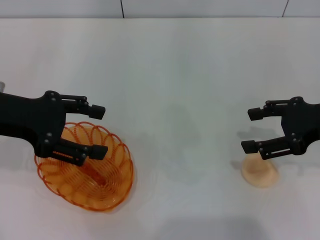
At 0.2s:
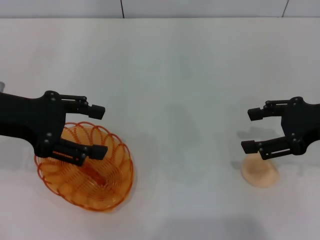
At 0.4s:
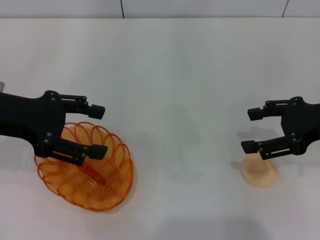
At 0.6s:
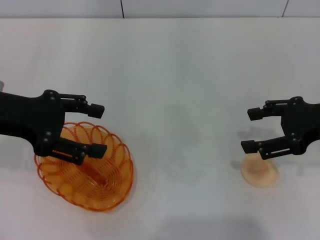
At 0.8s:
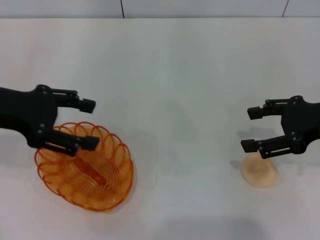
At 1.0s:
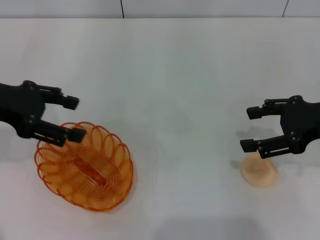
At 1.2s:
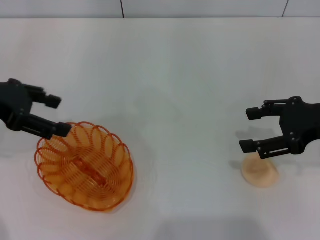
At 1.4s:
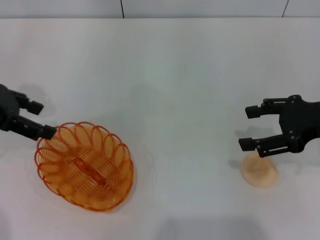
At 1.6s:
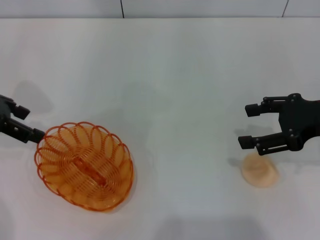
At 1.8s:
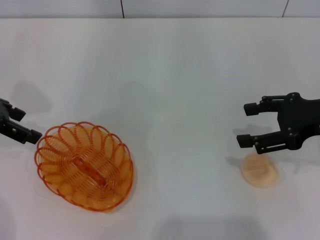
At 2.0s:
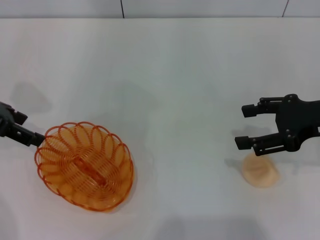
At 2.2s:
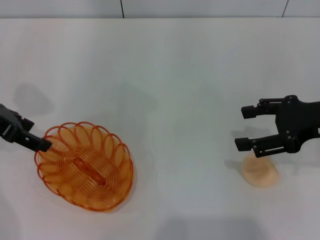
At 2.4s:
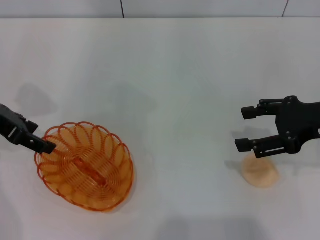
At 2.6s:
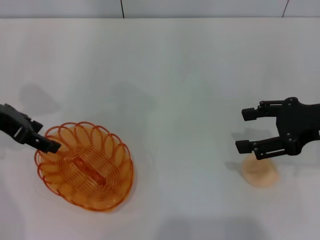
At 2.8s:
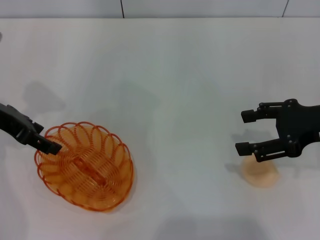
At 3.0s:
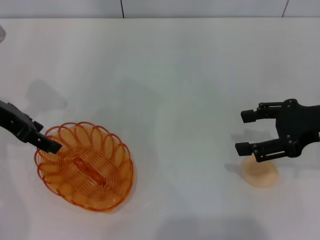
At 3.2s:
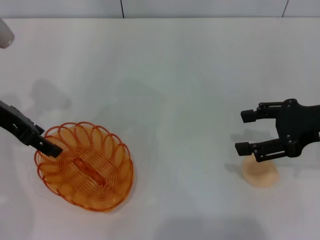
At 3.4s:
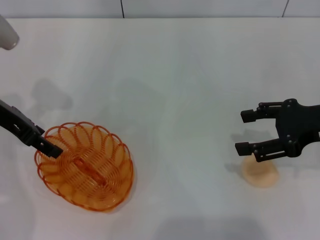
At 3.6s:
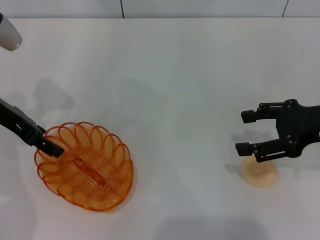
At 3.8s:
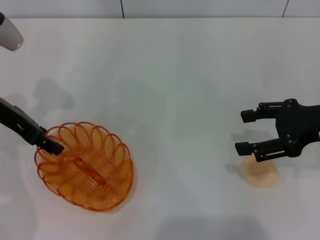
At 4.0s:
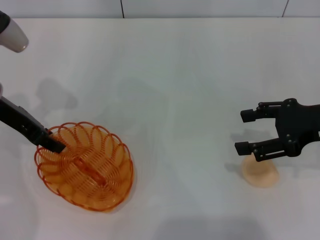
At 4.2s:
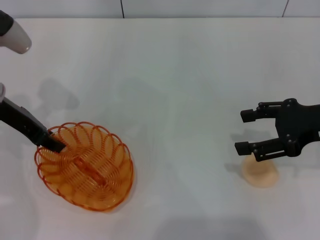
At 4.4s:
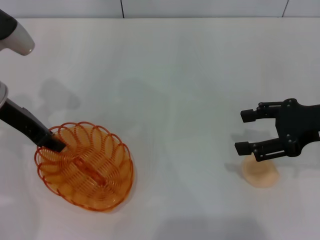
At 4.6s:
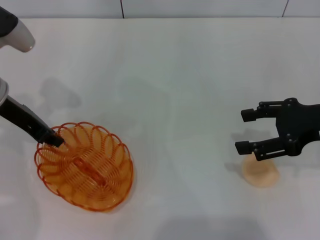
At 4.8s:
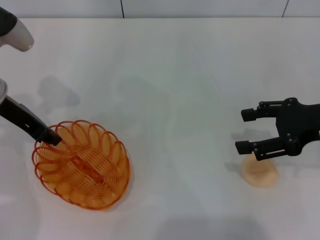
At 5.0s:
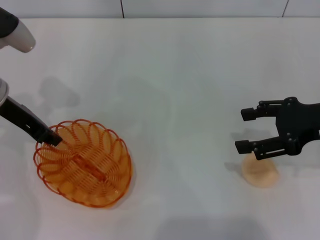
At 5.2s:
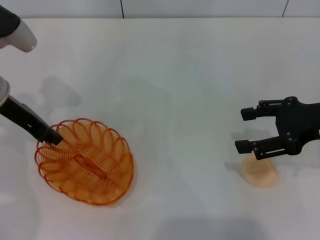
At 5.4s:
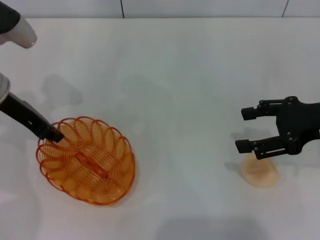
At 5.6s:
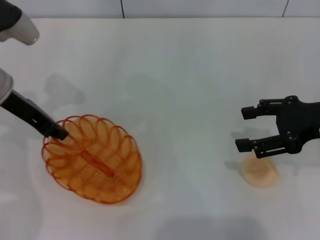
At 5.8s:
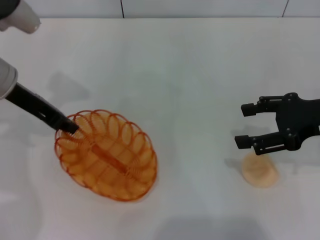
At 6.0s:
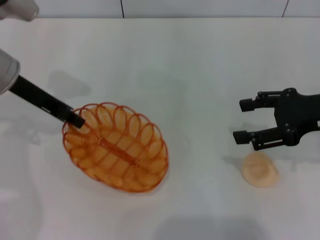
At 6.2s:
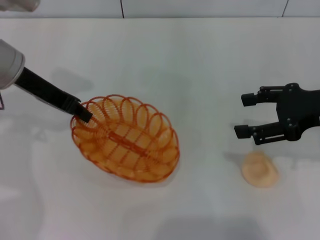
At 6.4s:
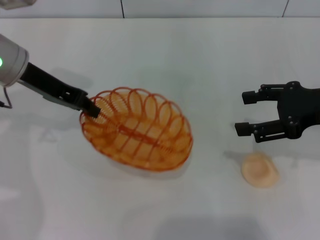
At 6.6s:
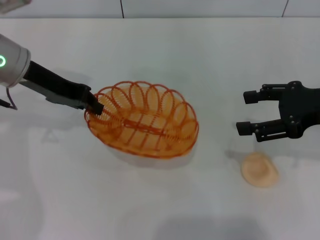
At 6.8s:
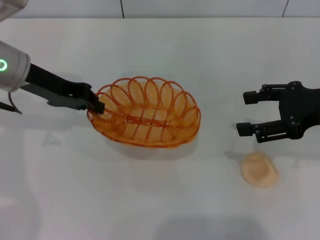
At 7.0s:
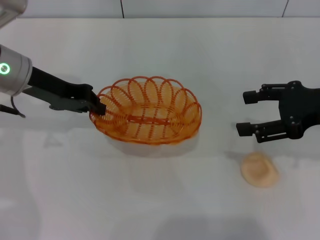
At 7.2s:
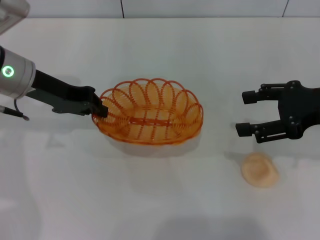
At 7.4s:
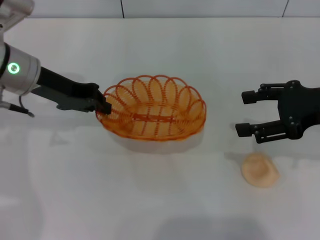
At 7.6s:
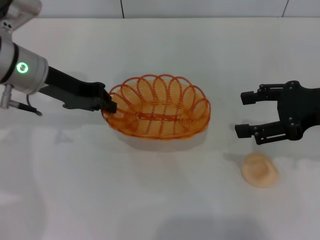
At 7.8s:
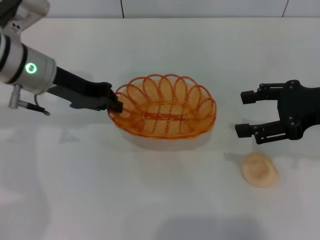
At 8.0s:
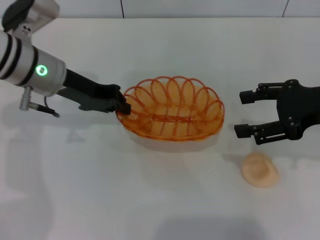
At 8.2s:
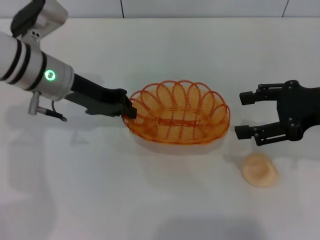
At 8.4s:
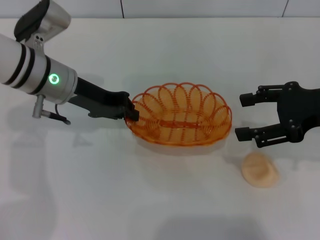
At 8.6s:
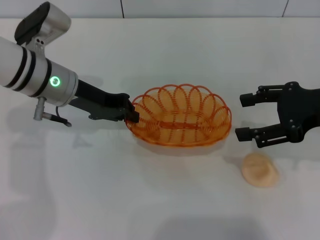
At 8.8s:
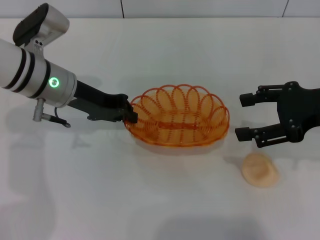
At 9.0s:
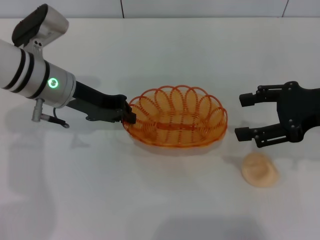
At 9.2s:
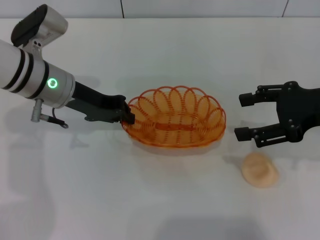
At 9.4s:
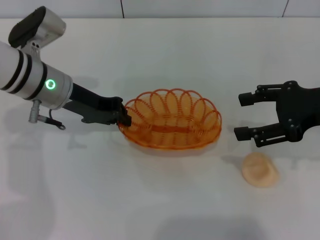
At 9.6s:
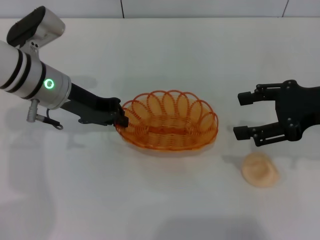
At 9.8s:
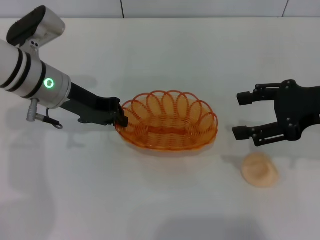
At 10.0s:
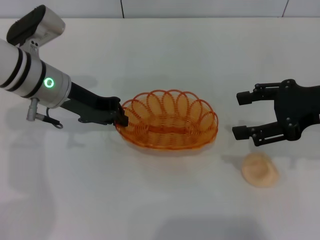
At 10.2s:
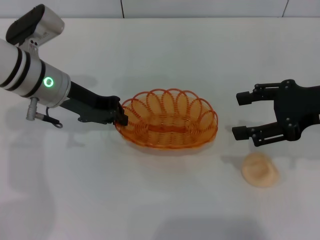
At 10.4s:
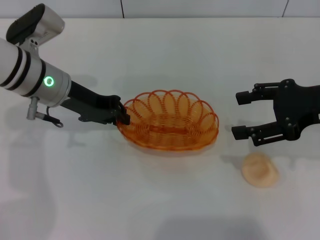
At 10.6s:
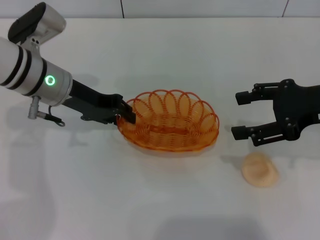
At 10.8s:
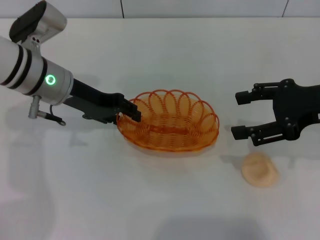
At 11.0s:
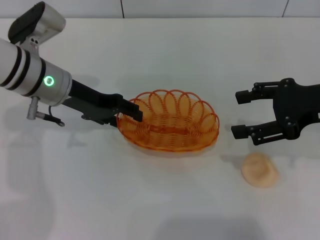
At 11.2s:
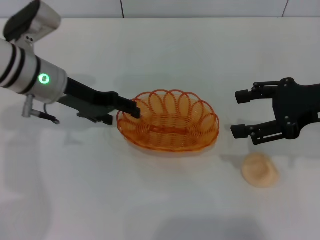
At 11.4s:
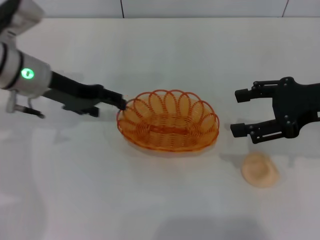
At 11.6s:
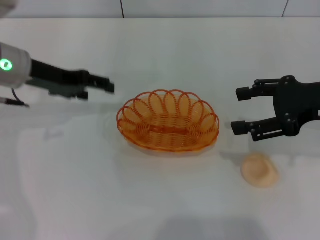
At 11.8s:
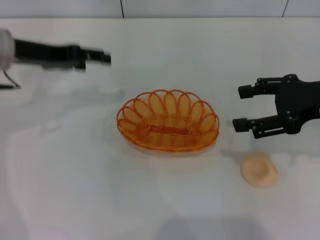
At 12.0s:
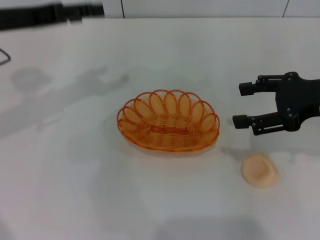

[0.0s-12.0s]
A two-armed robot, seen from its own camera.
Step, 0.0s to 5.6s: Pick up the basket with the left gripper.
Step, 5.8s to 11.4s: Place the basket in the center of view with the left gripper.
0.0s to 1.6s: The left gripper changes place by approximately 5 cm.
1.6s to 3.0s: The left gripper changes place by roughly 5 cm.
3.0s to 4.4s: The left gripper closes.
4.4s to 6.0s: The left gripper closes.
7.6s to 9.0s: The grippers stay close to where they were, moving slightly.
9.0s to 10.4s: Both grippers stay about where they are.
10.4s to 12.0s: The left gripper goes approximately 10 cm upward and to the left, and opens up.

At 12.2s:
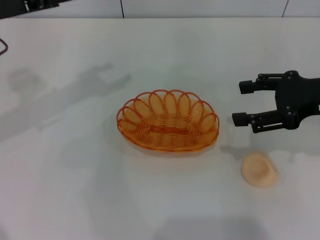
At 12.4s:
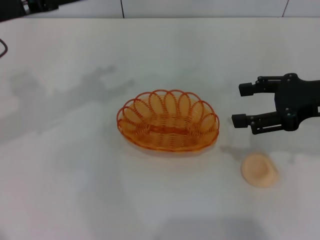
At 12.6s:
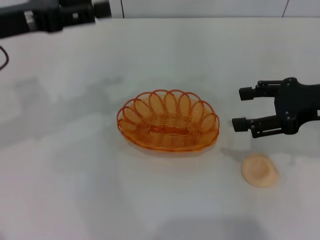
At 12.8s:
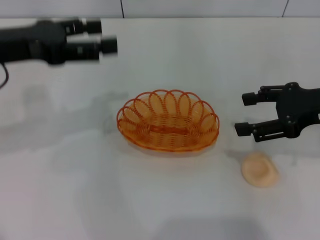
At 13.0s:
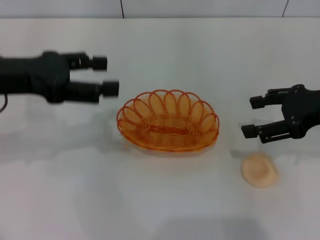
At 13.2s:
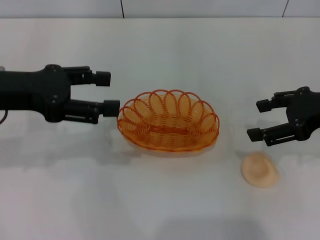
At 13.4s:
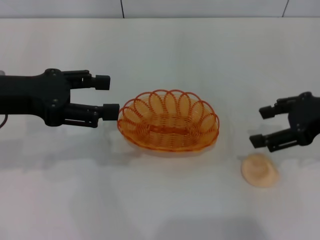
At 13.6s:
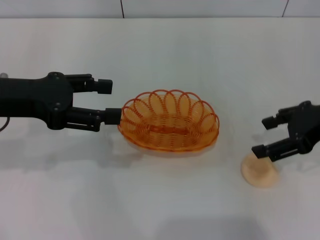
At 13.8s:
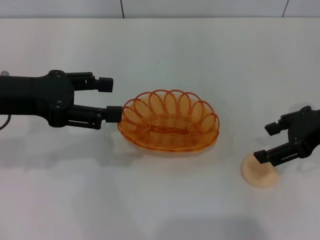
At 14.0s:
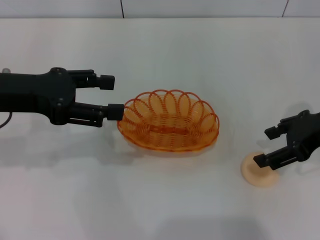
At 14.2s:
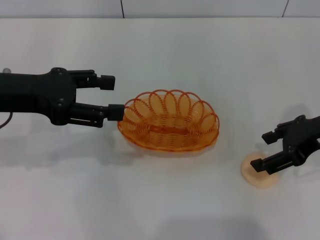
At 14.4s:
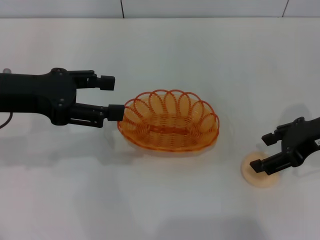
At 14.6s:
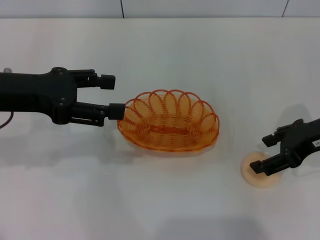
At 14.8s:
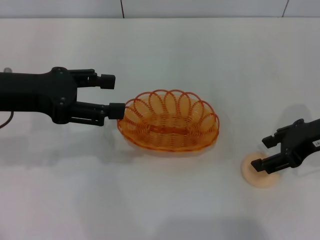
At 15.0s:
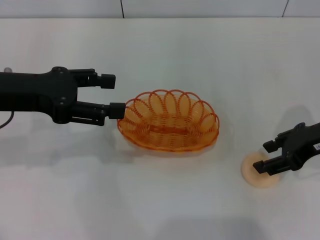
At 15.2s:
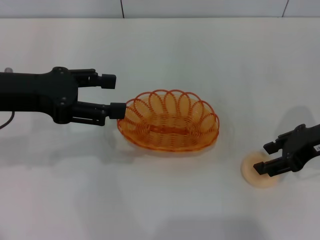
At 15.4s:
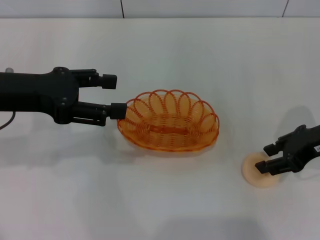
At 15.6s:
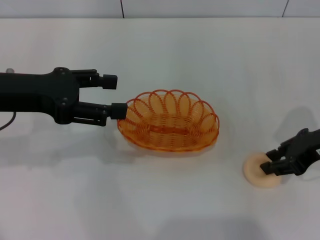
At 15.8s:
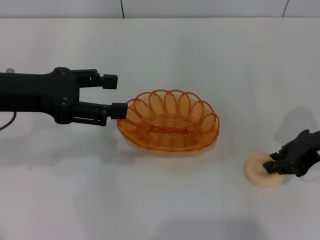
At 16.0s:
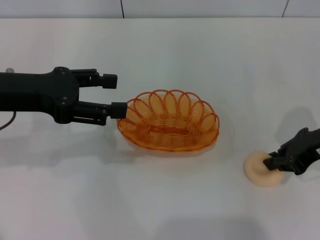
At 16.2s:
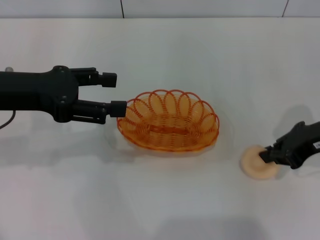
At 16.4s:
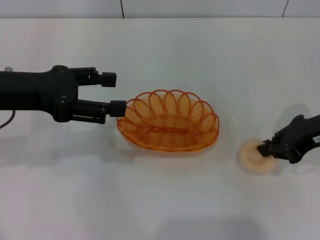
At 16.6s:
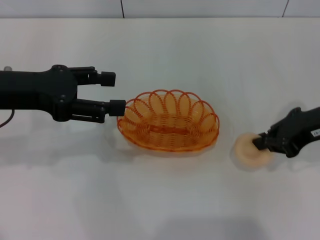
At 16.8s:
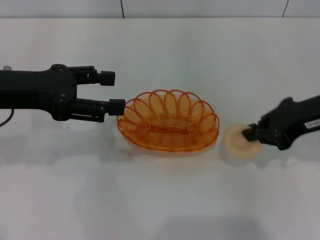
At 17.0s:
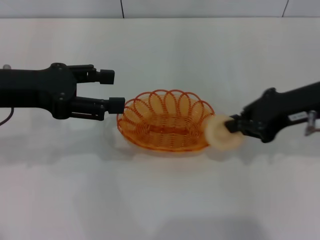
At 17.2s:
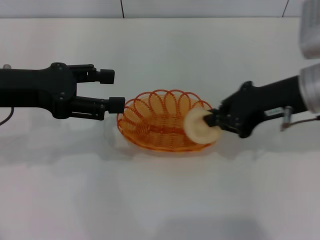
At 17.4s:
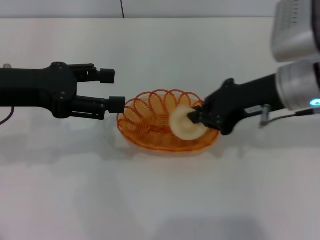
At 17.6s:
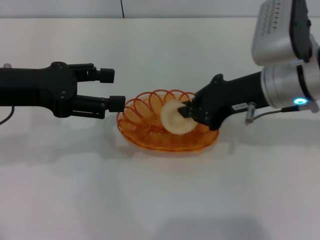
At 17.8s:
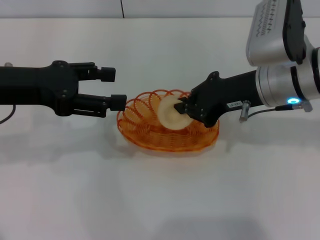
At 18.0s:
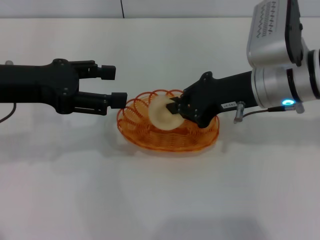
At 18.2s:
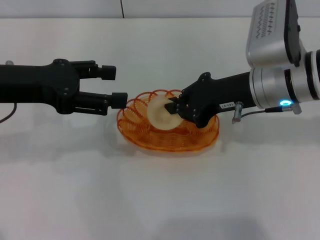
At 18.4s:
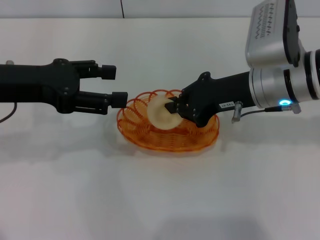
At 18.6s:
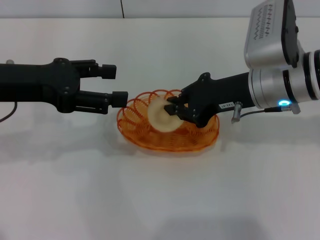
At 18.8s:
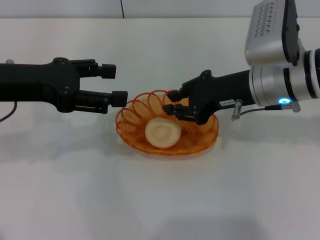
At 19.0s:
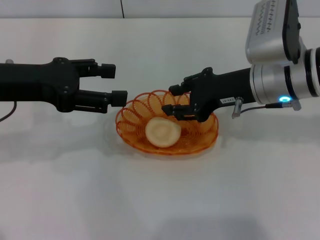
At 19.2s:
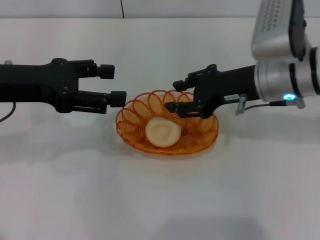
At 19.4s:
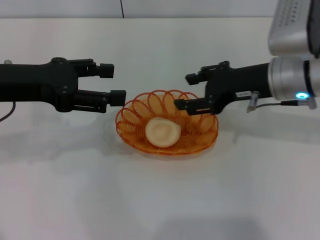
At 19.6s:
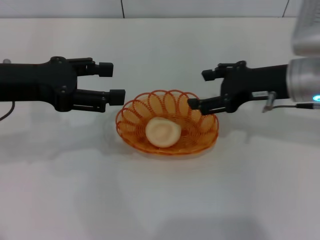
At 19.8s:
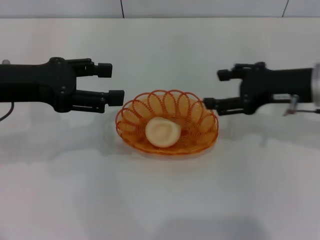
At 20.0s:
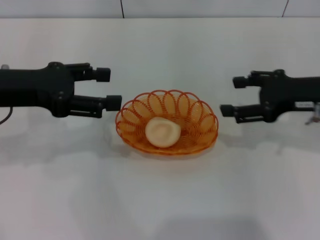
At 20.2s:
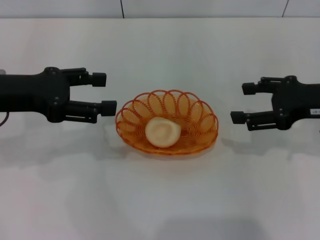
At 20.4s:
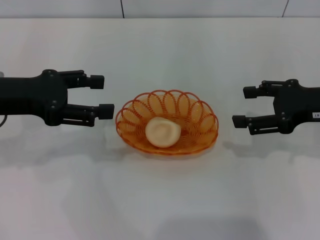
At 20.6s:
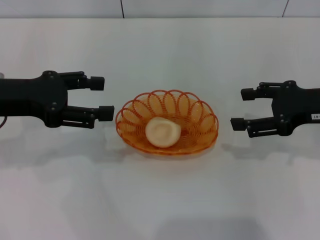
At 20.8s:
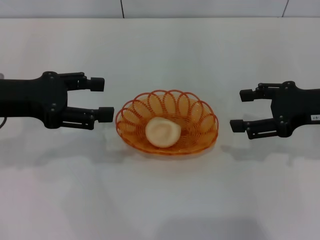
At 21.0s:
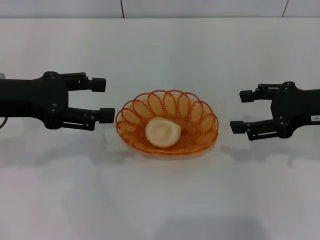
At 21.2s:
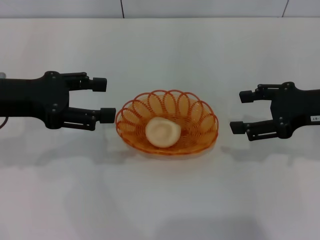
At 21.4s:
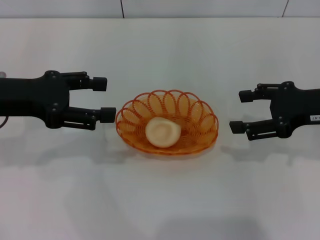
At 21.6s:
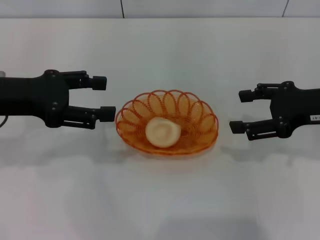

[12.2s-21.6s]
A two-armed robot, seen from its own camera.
Step, 12.2s to 16.6s: Pick up the egg yolk pastry with the right gripper.
Step, 16.8s to 19.2s: Place the egg yolk pastry into the basket with the right gripper.
12.2s to 13.8s: The left gripper travels backward by some 5 cm.
13.8s to 15.4s: The grippers make only small movements.
15.4s to 17.0s: The right gripper shifts by some 5 cm, and closes its fingers.
17.0s to 18.4s: The right gripper moves to the left, roughly 5 cm.
18.4s to 20.0s: The right gripper moves to the right, some 10 cm, and opens.
20.0s to 21.6s: The grippers make only small movements.

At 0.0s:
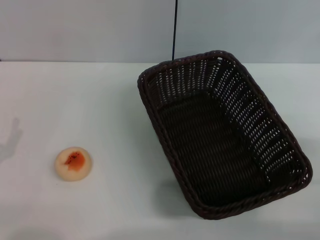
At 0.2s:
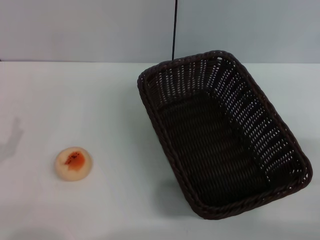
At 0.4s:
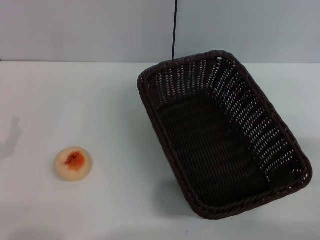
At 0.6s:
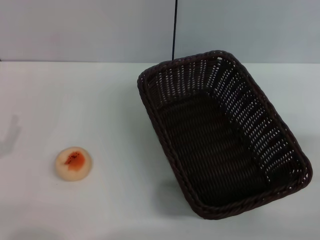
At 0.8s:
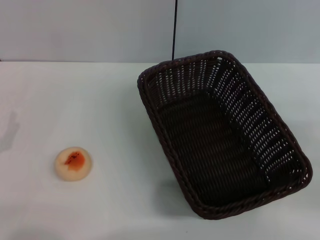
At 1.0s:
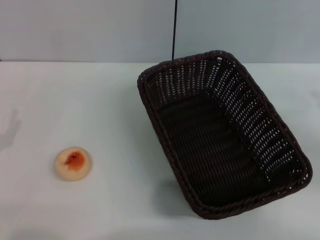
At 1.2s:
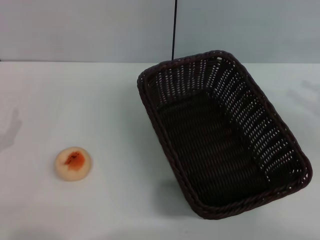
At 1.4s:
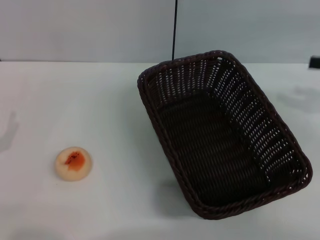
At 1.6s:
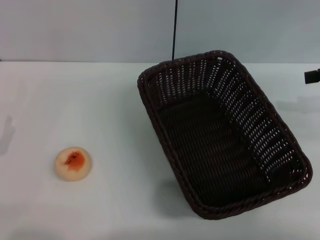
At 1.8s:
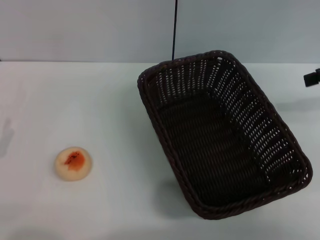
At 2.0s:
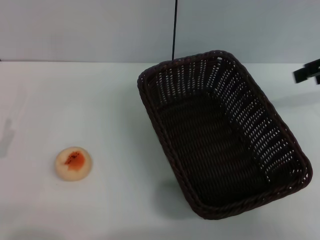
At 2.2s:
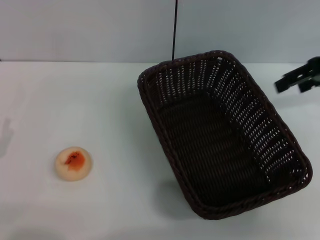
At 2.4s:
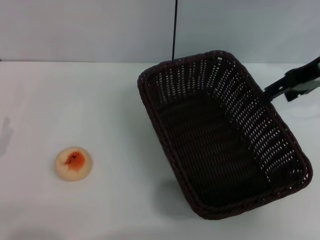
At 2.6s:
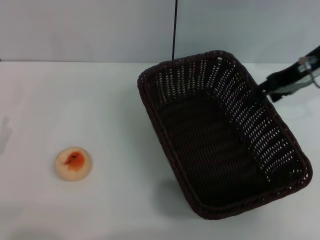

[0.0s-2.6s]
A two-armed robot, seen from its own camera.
1.2s to 2.6s: The right gripper is displaced to the left and forward by some 20 cm.
